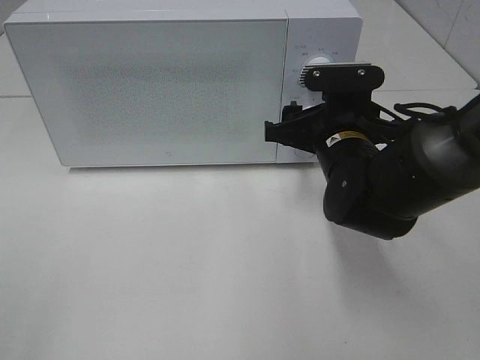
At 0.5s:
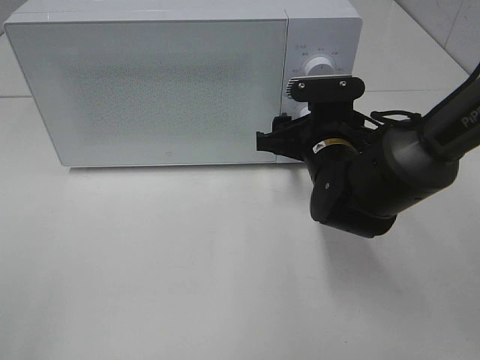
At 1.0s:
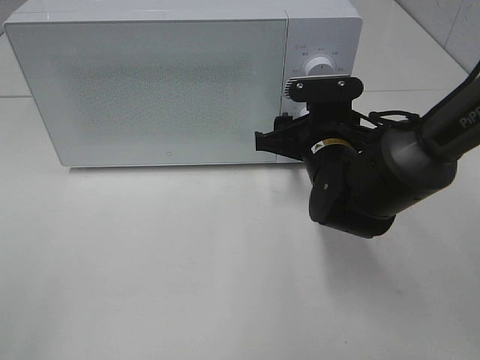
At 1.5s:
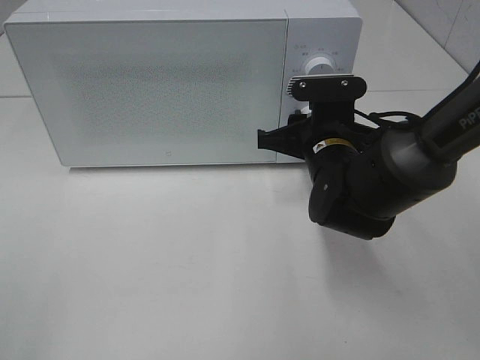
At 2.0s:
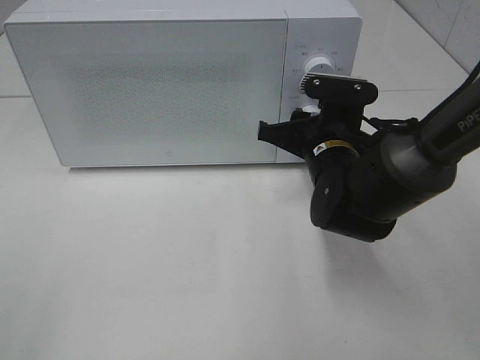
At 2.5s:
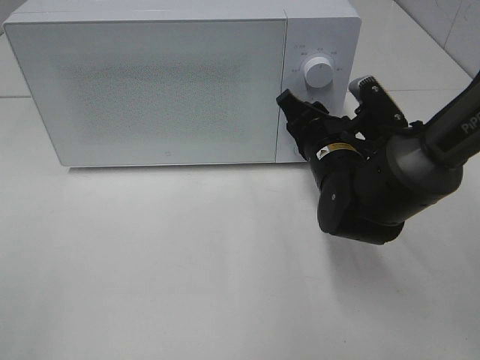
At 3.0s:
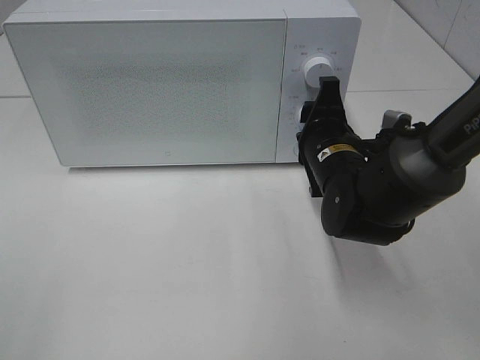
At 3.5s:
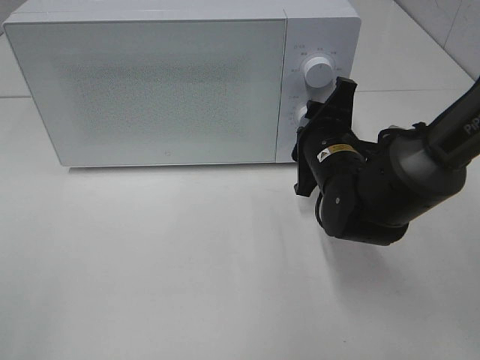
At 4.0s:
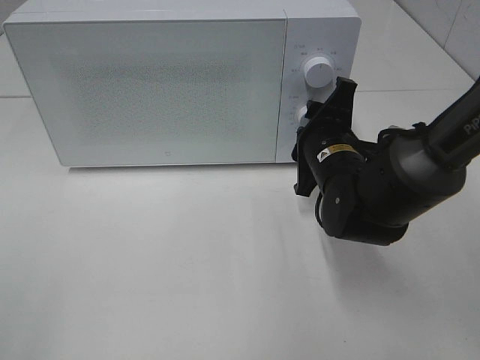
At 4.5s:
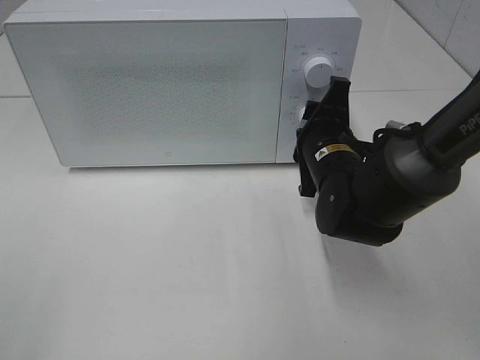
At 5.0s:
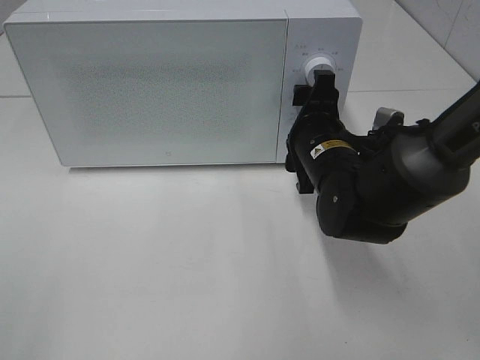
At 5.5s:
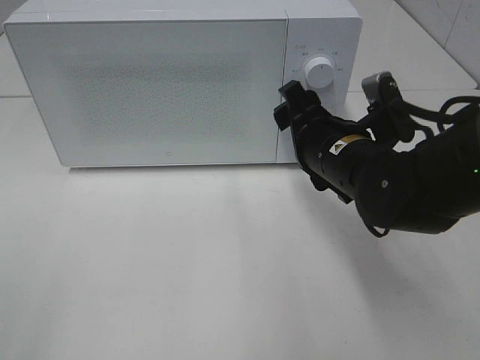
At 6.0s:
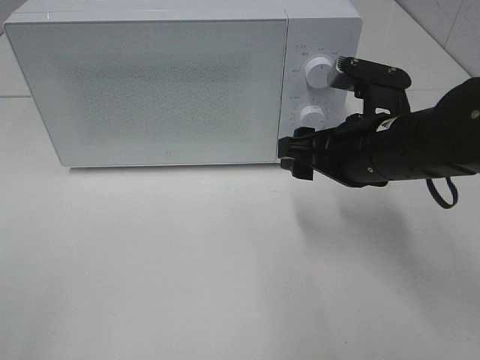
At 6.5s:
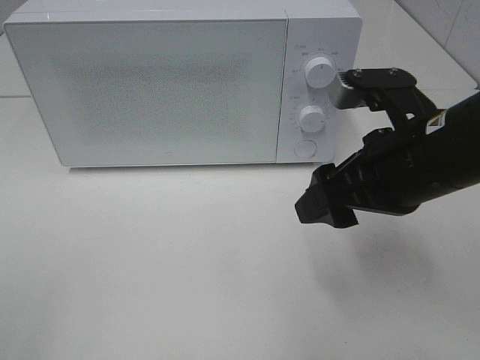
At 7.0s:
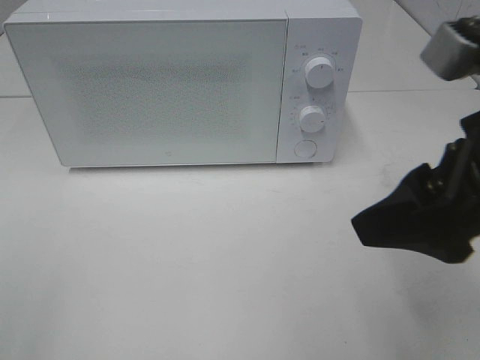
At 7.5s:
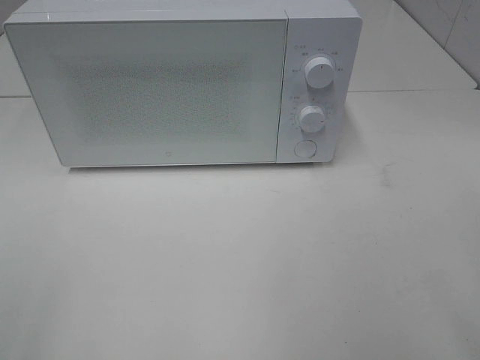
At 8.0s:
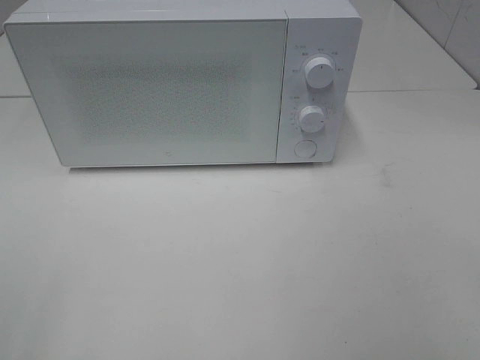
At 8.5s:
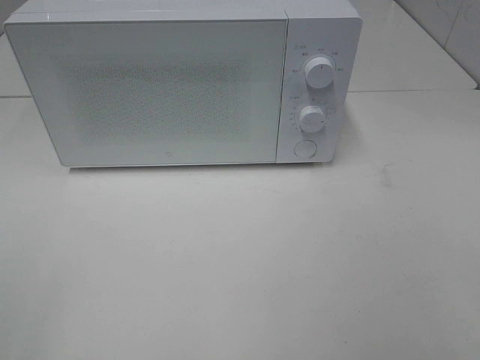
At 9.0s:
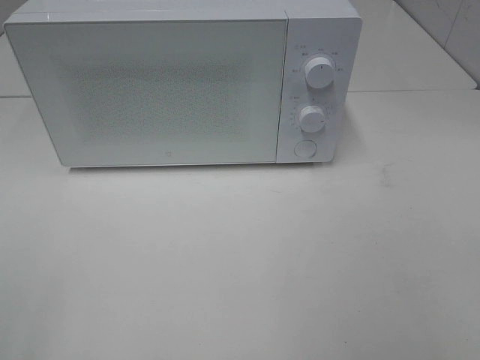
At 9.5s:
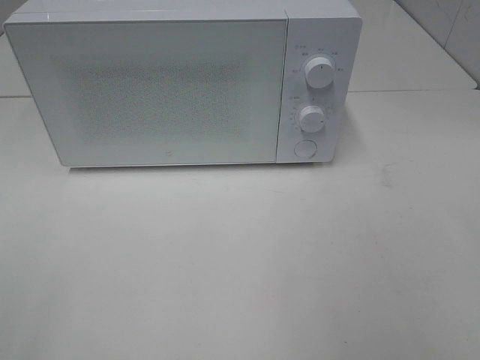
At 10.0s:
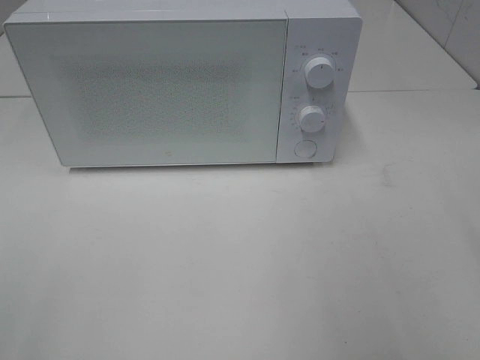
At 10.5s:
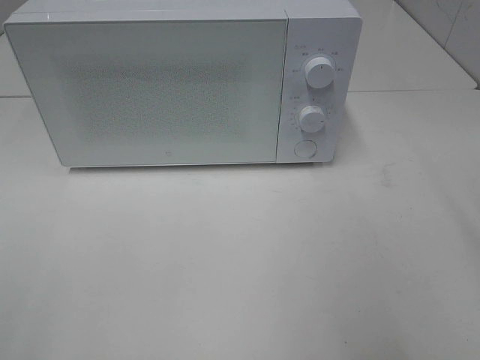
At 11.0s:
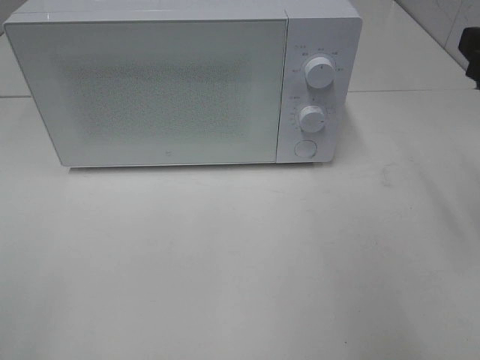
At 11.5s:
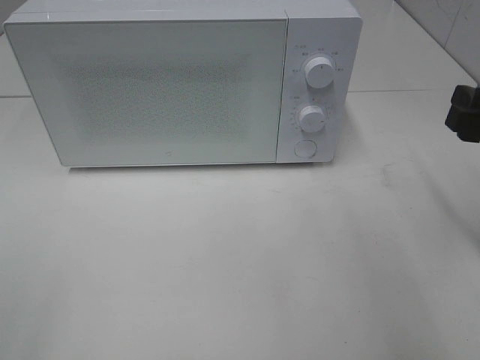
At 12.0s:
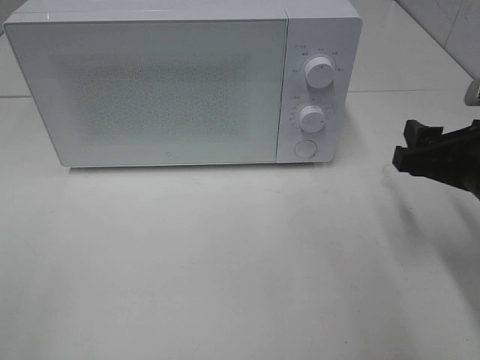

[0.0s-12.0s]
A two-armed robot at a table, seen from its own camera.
Task of the whole recording: Heat the burger.
Step, 0.0s to 4.5s: Right hand: twist timer button.
0.0s to 2.0s: The grippers make only small movements.
4.0s to 6.0s: The right gripper goes approximately 10 cm upward and backward.
6.0s to 8.0s: The right gripper shifts roughly 35 cm backward, to the right and upward.
10.0s to 12.0s: The right gripper shifts approximately 20 cm downward and forward.

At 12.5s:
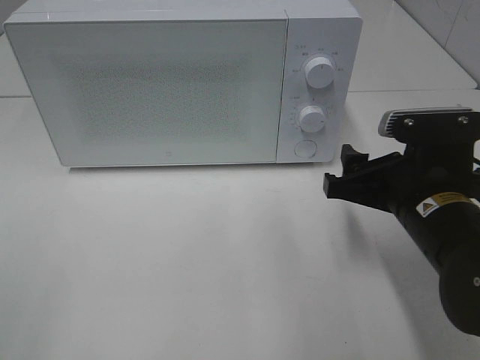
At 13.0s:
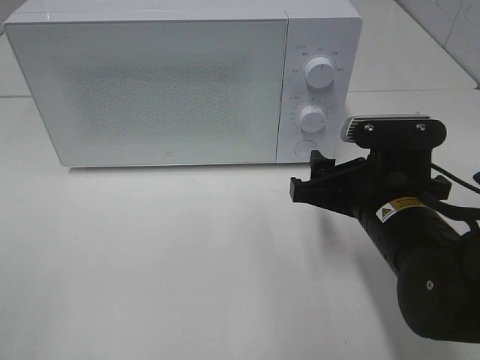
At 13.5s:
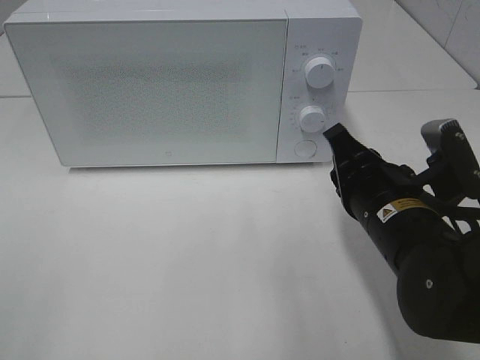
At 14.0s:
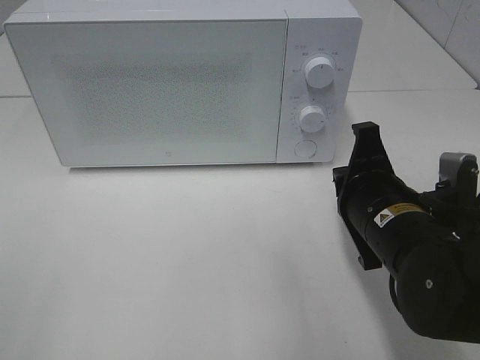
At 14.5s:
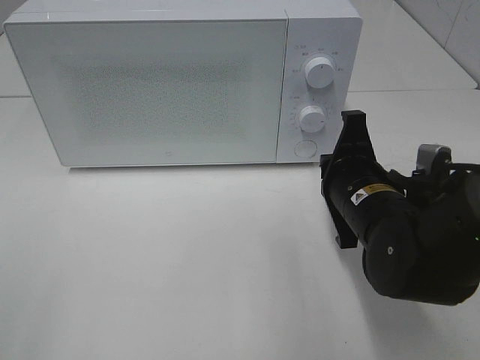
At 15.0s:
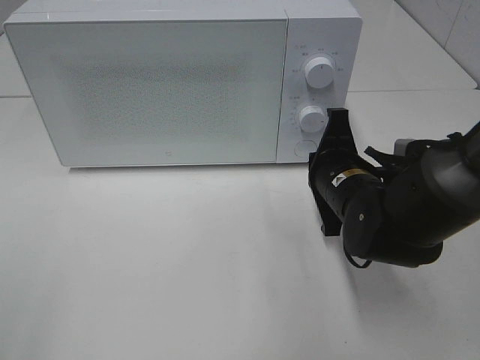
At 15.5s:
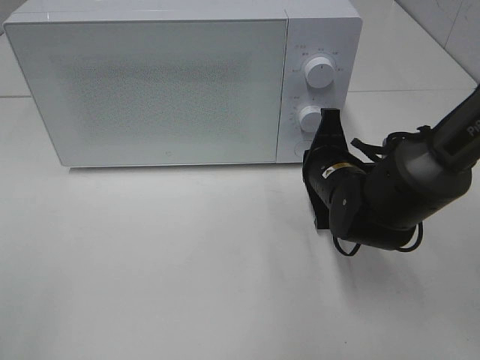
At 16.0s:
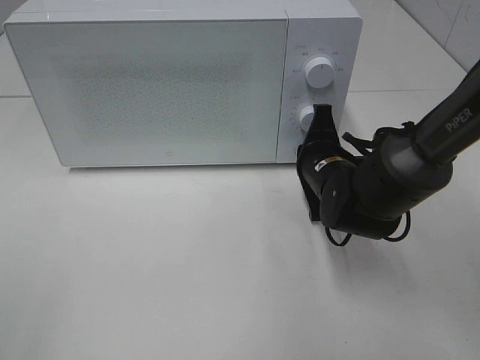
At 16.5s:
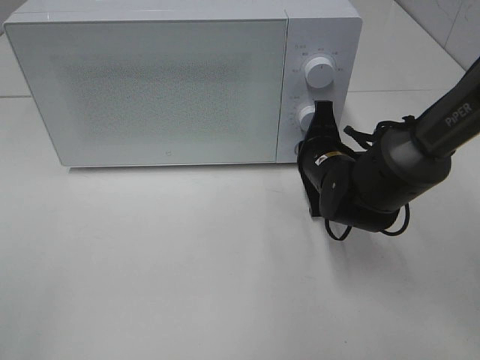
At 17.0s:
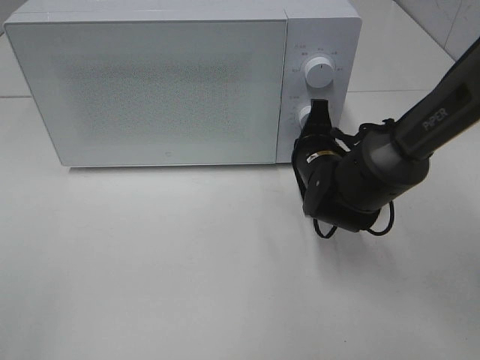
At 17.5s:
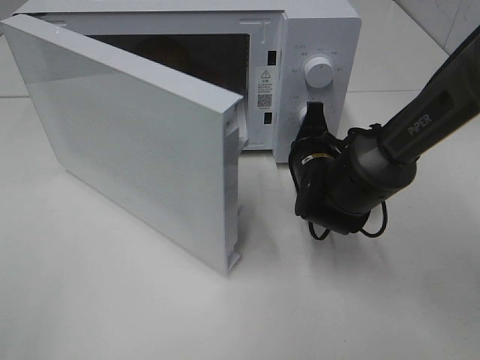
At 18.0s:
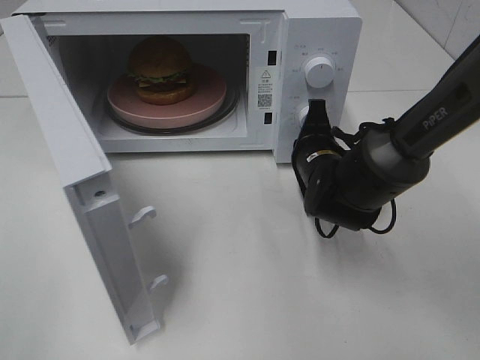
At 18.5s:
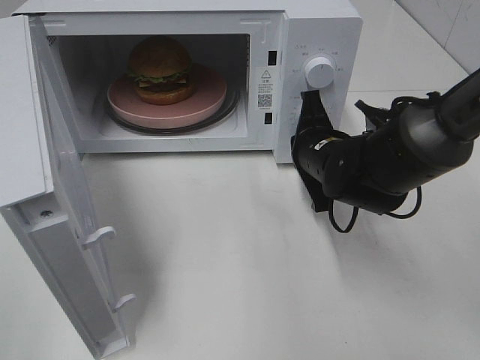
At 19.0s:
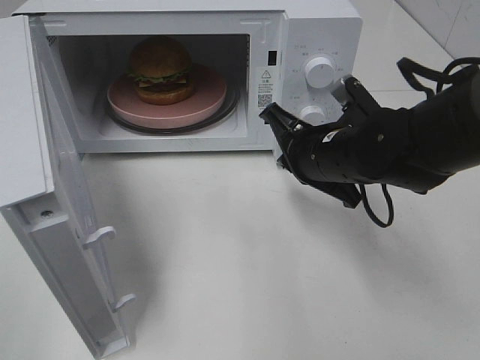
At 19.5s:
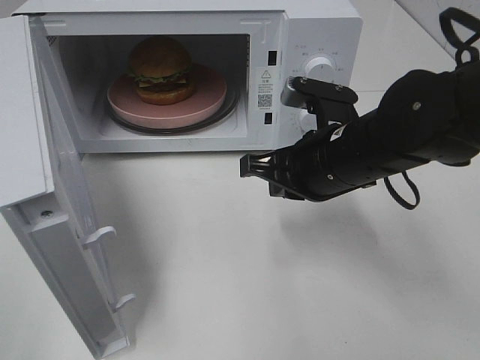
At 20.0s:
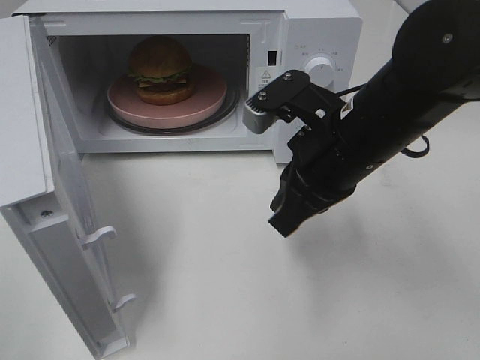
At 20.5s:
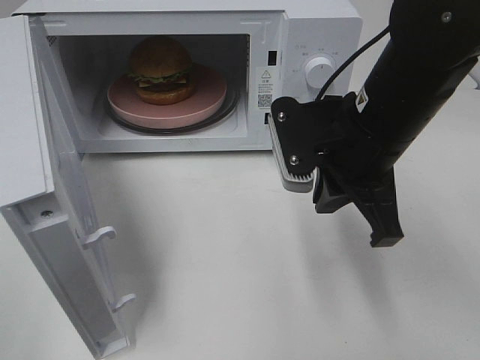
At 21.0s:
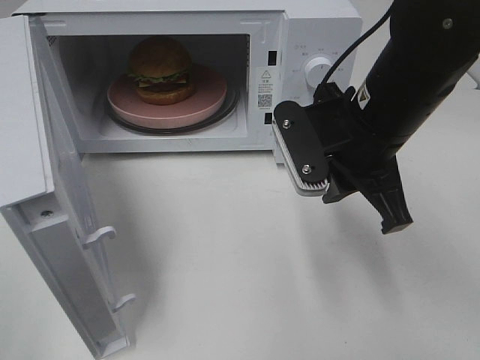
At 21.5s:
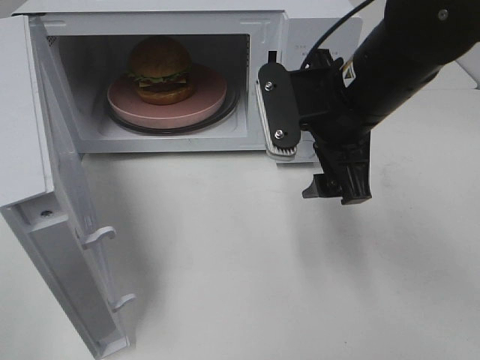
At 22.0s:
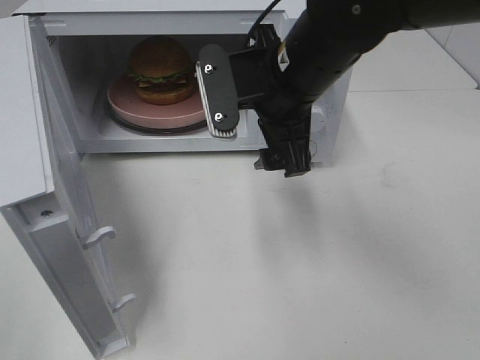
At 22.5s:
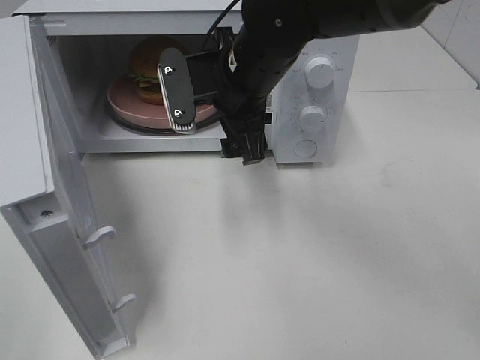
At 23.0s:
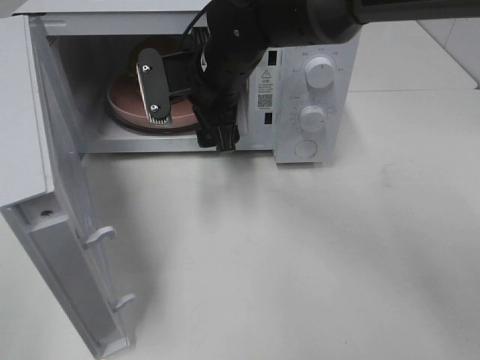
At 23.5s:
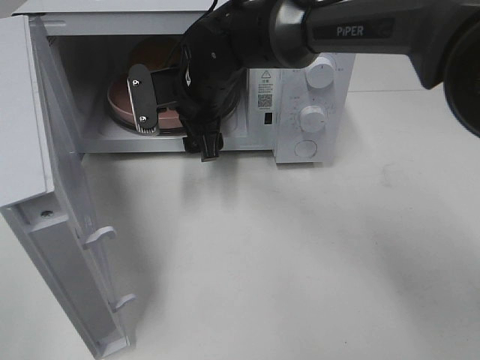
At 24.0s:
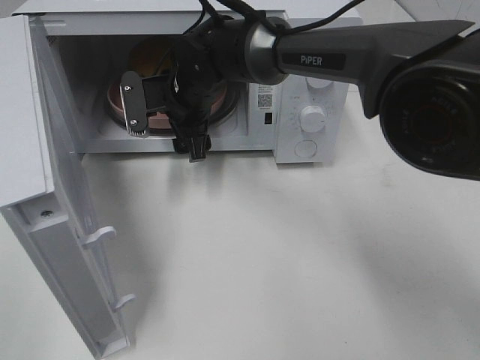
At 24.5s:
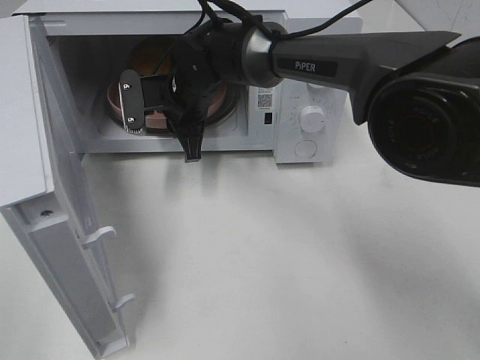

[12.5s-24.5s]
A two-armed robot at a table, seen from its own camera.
Task of the whole recording: Heat the burger.
Step, 12.5s to 18.0s: Right hand: press the switch.
12.5s to 14.5s: The right gripper moves some 5 cm, and closes up.
14.5s to 16.5s: The right gripper goes about 10 cm forward.
18.5s to 20.5s: The right gripper goes some 15 cm upward and backward.
20.5s to 22.5s: The right gripper is displaced to the left and forward by approximately 15 cm, and opens.
22.5s to 24.5s: The right gripper heads forward, downward and to the left, covering approximately 15 cm, and closes.

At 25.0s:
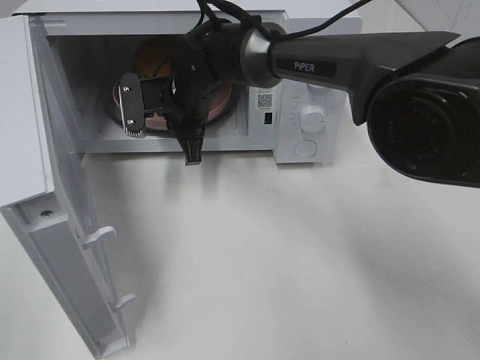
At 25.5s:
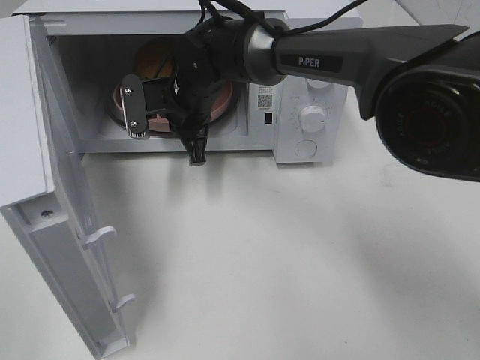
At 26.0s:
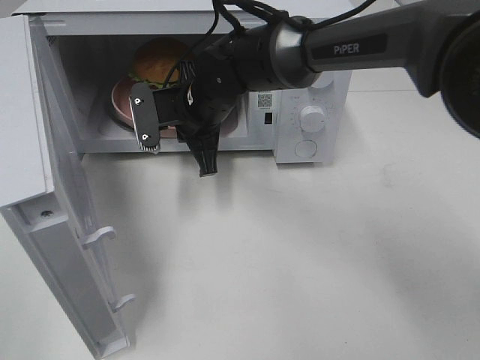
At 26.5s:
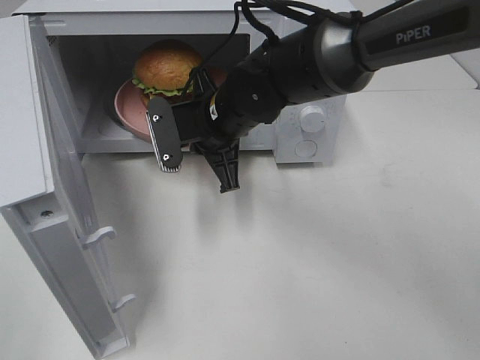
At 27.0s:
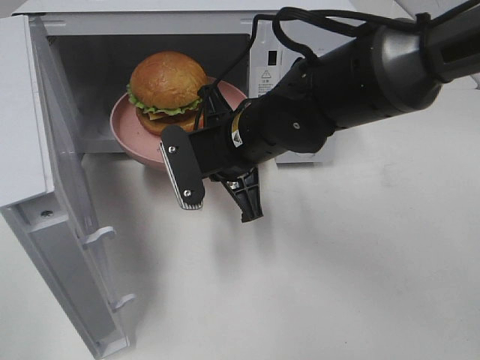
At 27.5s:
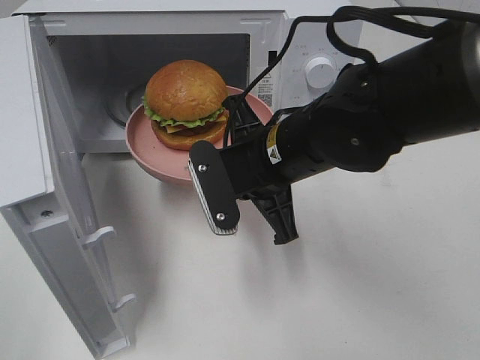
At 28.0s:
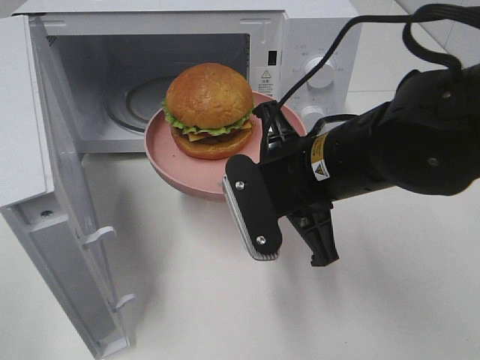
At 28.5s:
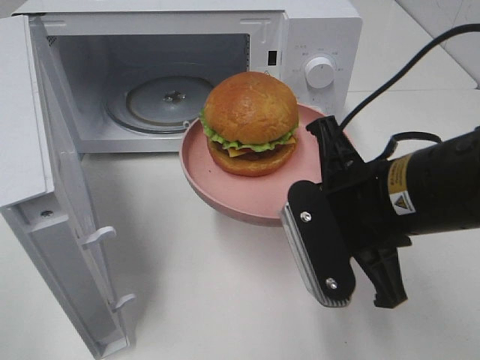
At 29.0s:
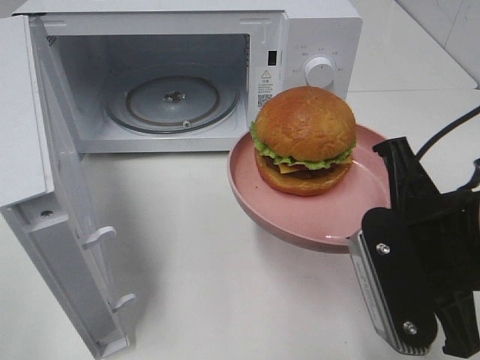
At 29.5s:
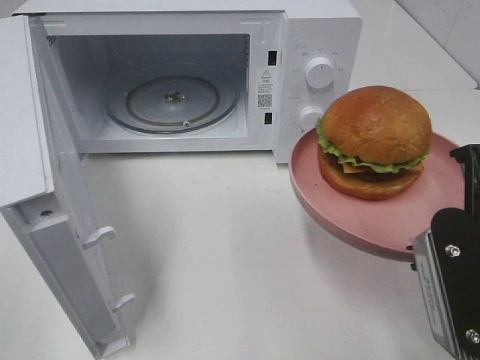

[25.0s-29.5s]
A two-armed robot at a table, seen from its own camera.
Task of the whole recording: Heat the burger.
25.0s to 27.0s: The right gripper moves backward and to the right, approximately 15 cm.
27.0s to 29.5s: The right gripper travels backward and to the right by roughly 25 cm.
